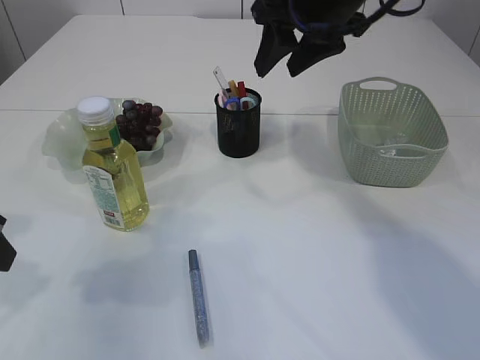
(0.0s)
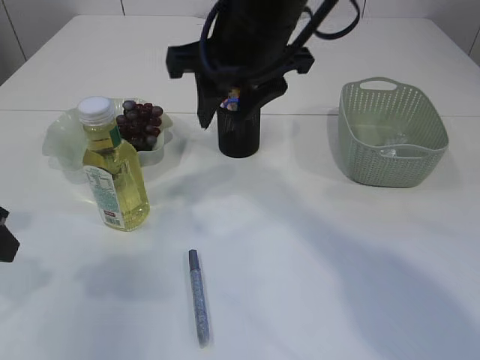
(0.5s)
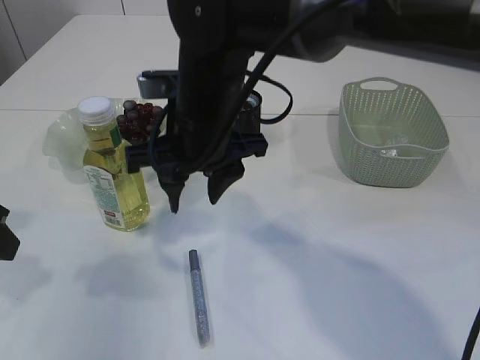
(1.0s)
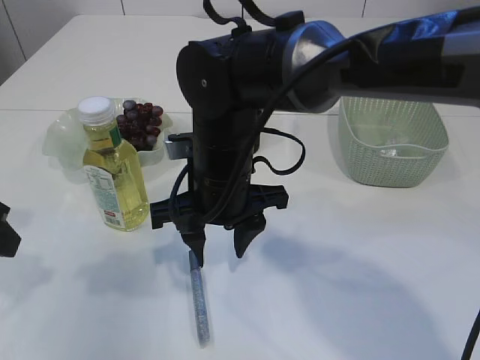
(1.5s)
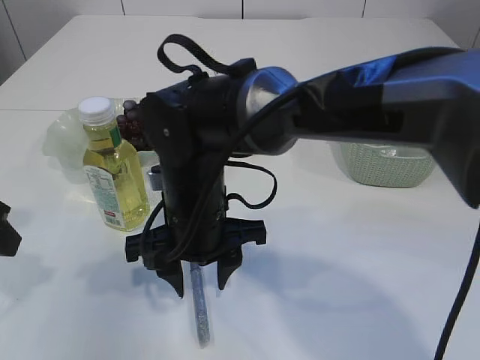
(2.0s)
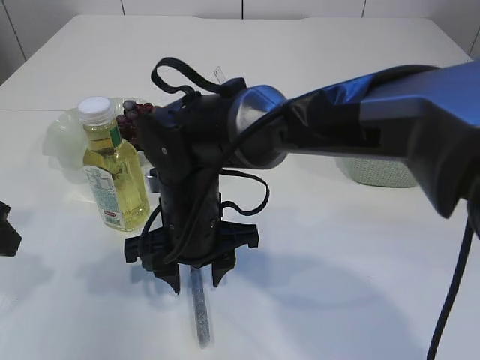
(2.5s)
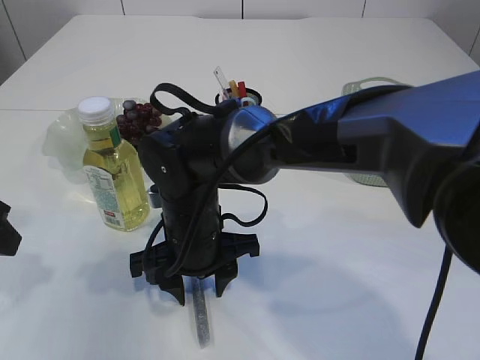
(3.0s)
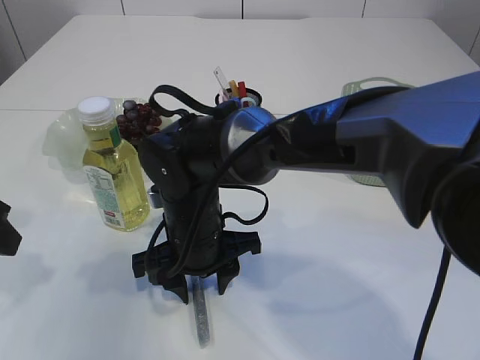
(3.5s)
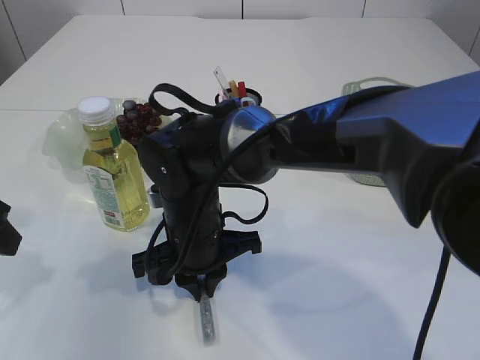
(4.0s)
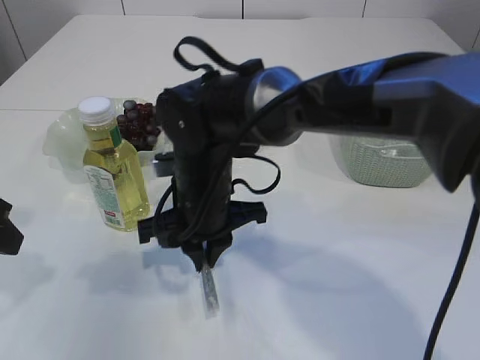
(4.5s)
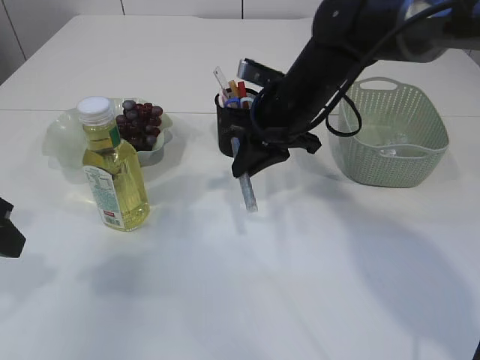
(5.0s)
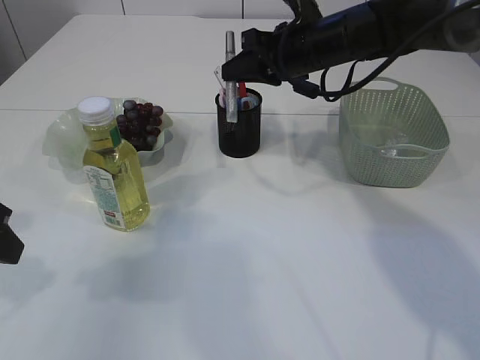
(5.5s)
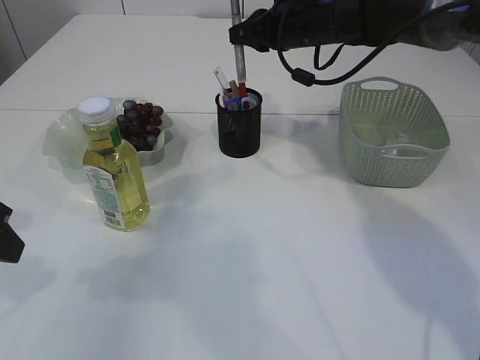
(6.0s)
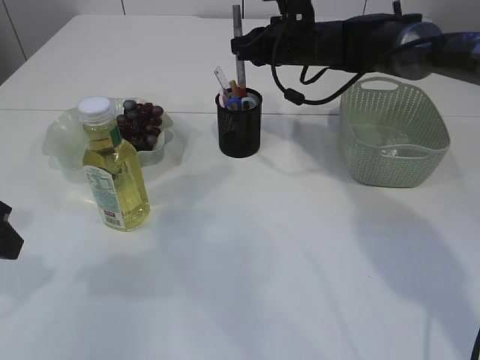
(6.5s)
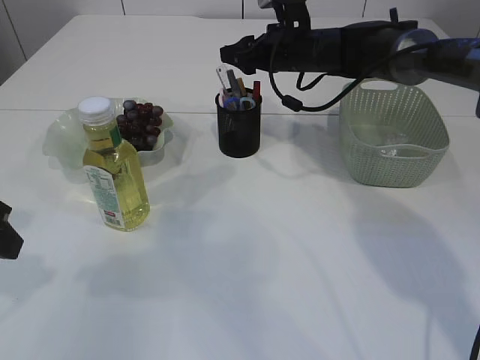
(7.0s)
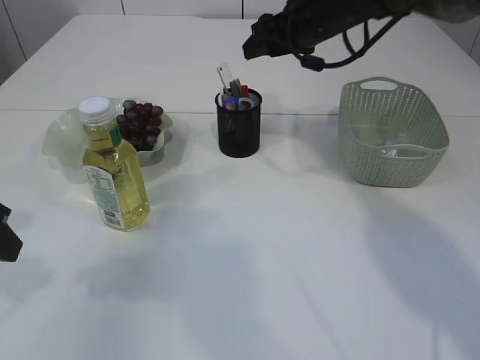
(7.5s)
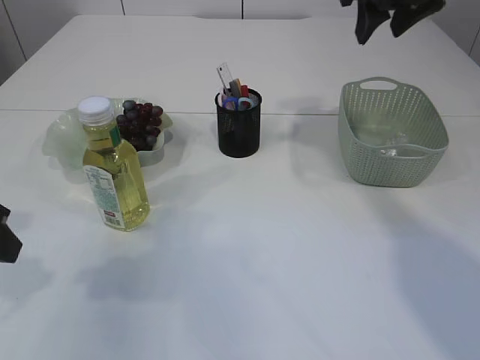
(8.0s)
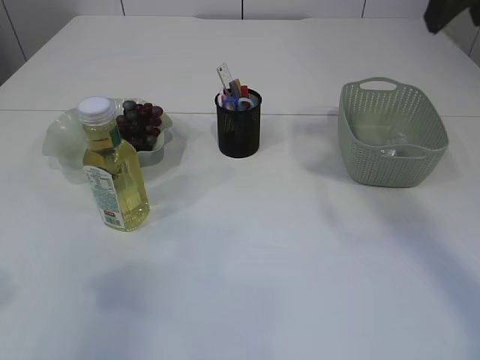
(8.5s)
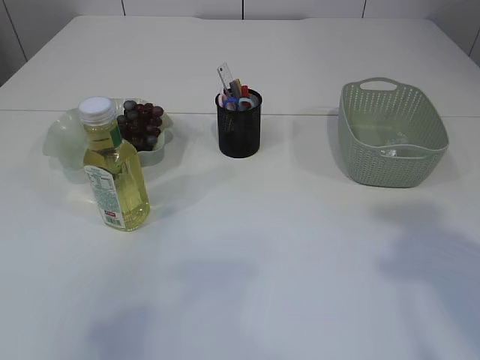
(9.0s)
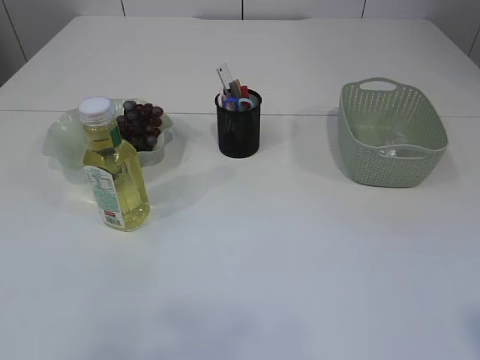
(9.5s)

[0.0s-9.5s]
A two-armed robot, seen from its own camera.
Step, 0.0s to 4.5s: pick up the silver glue.
Step, 5.0s to 7.5s: place the silver glue into the pen holder.
0.0s to 2.0s: The right gripper is displaced downward, to the left and backward by approximately 25 cm.
2.0s to 4.0s: The right gripper closes its fingers.
4.0s to 5.5s: The right gripper heads to the right, forward and upward, covering about 25 cm.
5.5s to 7.5s: The right gripper opens its fingers.
7.5s to 9.5s: The right gripper is displaced backward by about 50 cm. The left gripper heads backward and upward, covering roughly 20 cm.

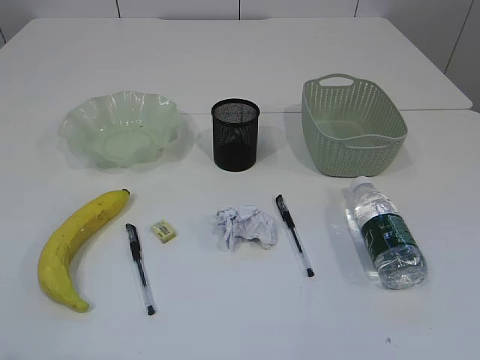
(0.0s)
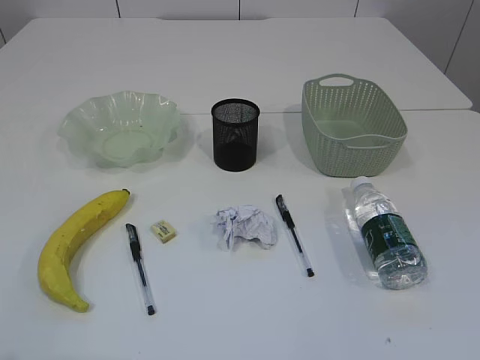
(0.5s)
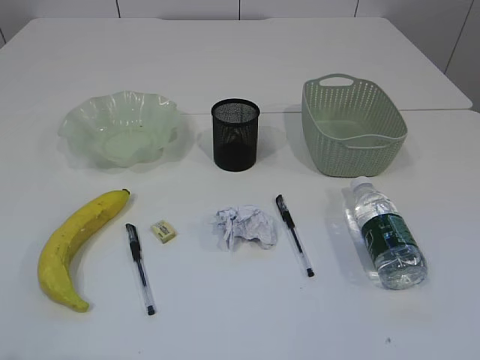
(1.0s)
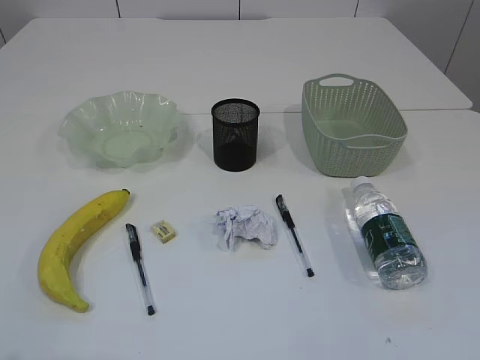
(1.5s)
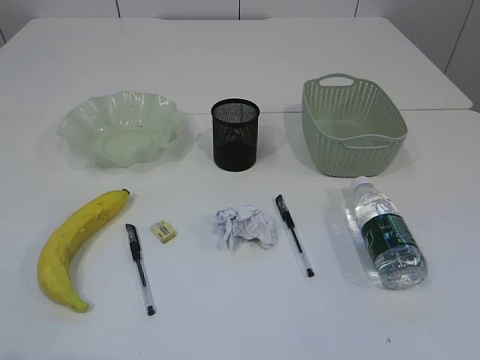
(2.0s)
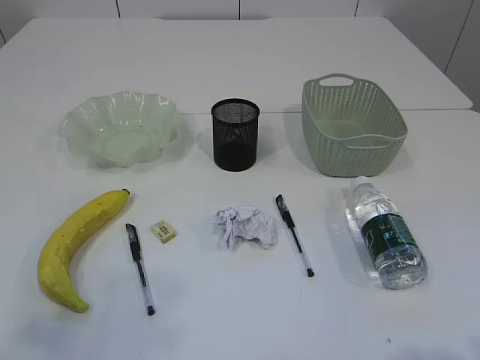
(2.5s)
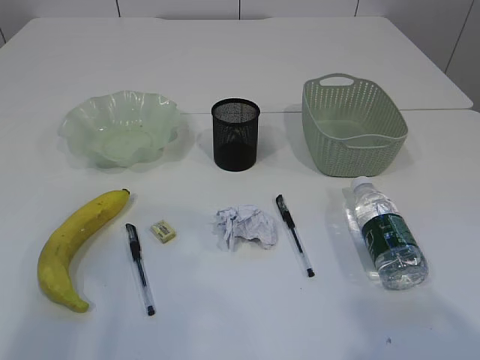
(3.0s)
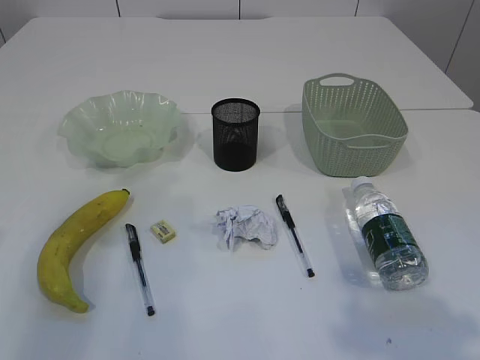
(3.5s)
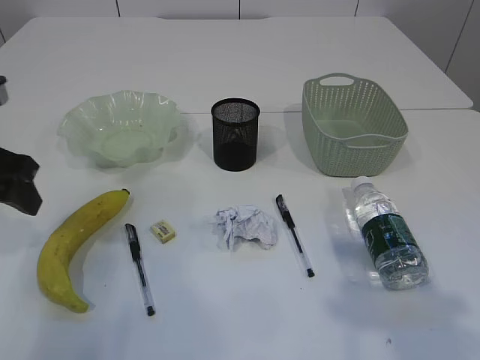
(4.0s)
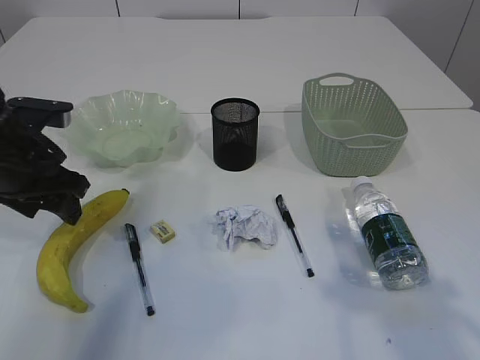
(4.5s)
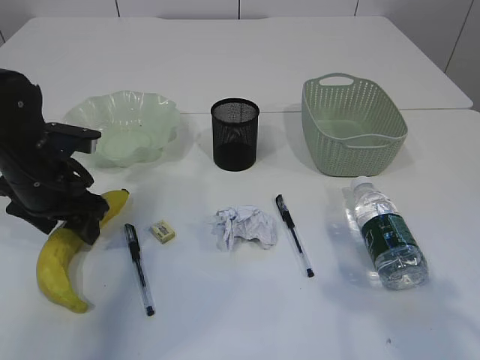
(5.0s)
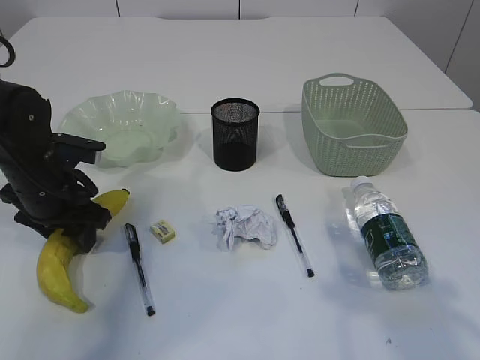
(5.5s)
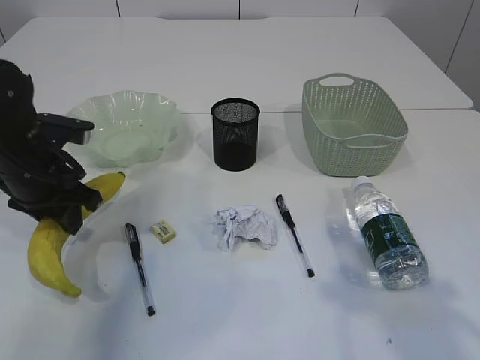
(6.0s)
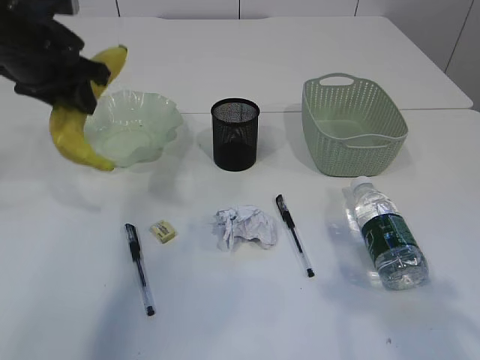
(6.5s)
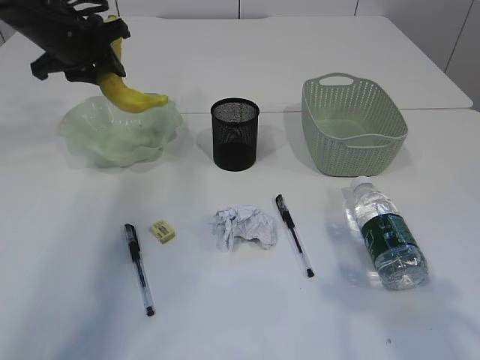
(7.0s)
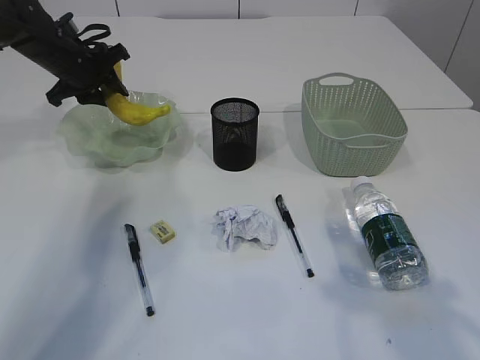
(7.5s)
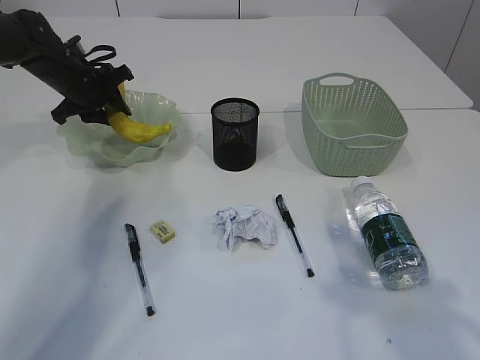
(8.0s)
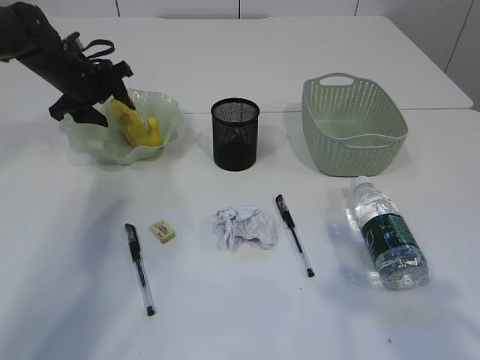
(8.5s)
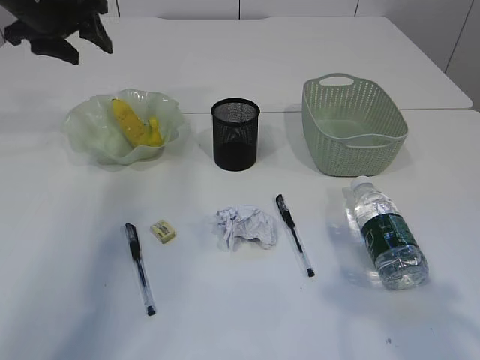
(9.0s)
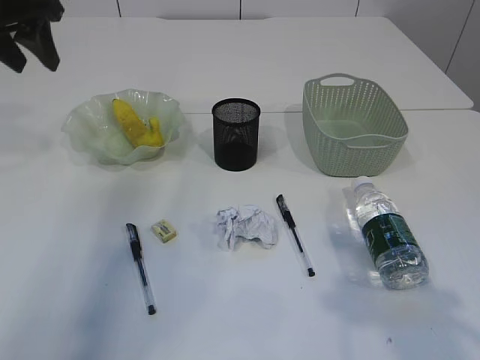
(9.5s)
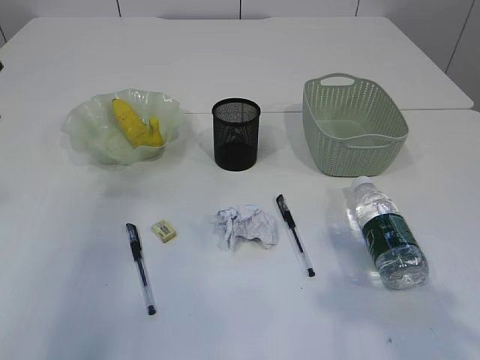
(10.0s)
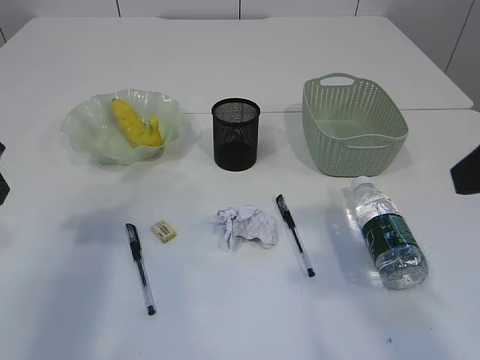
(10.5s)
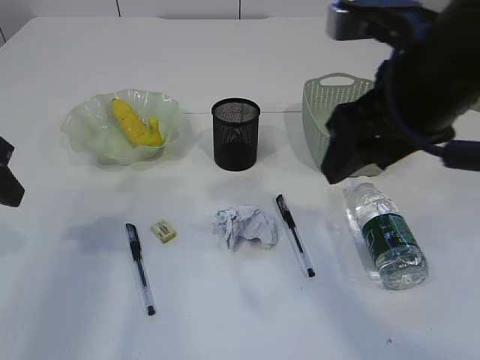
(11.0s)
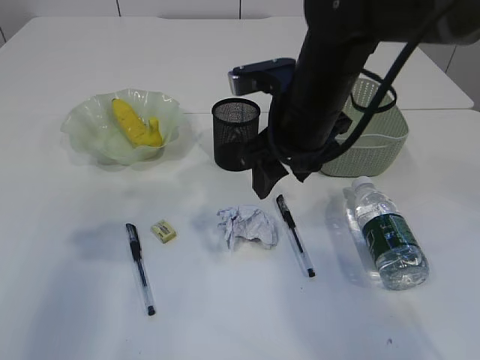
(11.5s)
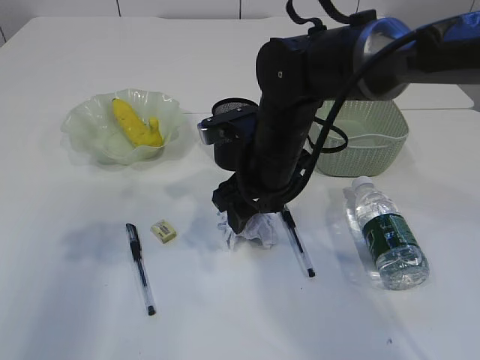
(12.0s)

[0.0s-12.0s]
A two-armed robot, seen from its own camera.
Step, 6.5s to 8.5s: Place the banana in the plate.
2.0s to 4.0s: The right gripper is displaced forward by approximately 15 cm. Meanwhile the left gripper travels forward by roughly 30 cm.
4.0s to 6.0s: The left gripper heads downward and forward, covering roughly 10 cm, and closes its fingers.
6.0s to 8.0s: The left gripper travels forward by about 20 cm.
8.0s to 10.0s: The left gripper is displaced backward and upward by some 25 cm.
10.0s to 12.0s: The left gripper is displaced backward by some 10 cm, while the right gripper goes about 35 cm forward, to the left and downward.

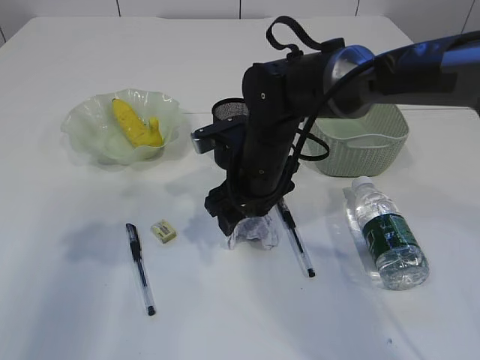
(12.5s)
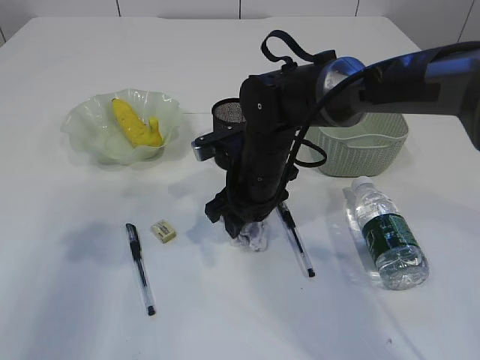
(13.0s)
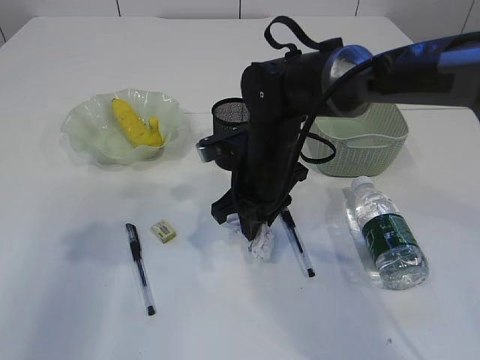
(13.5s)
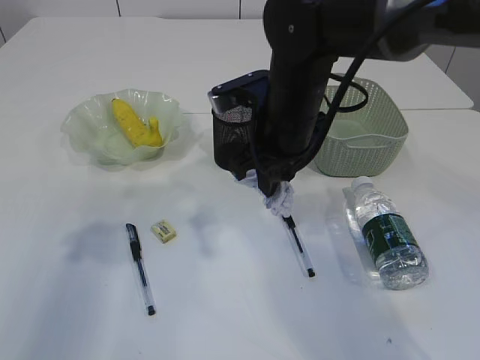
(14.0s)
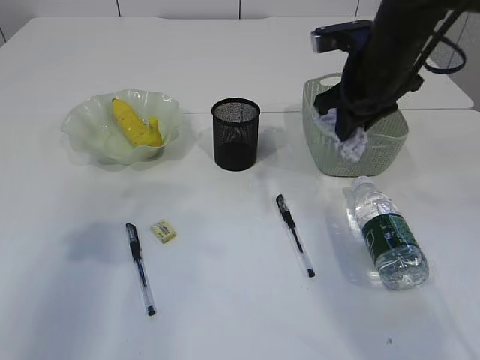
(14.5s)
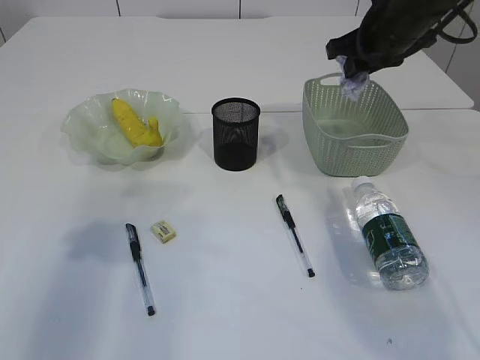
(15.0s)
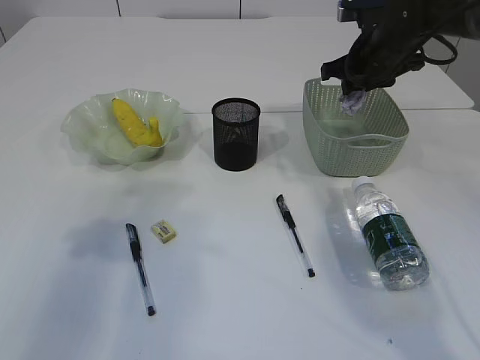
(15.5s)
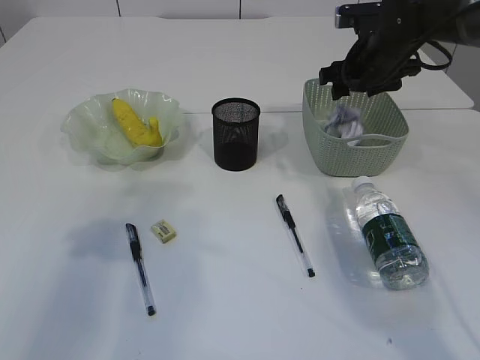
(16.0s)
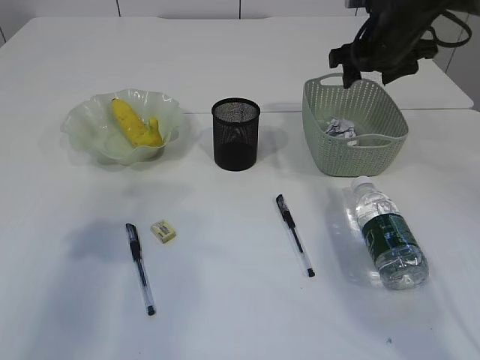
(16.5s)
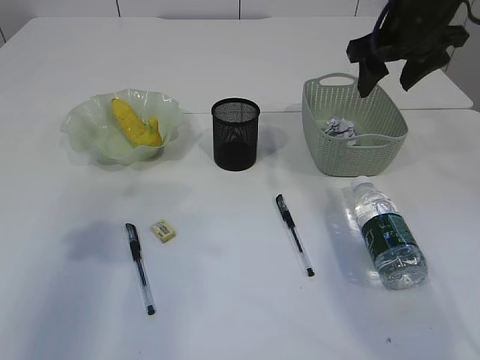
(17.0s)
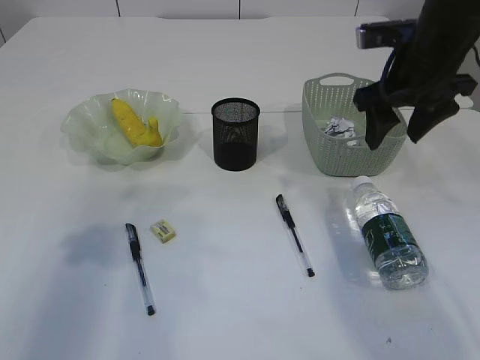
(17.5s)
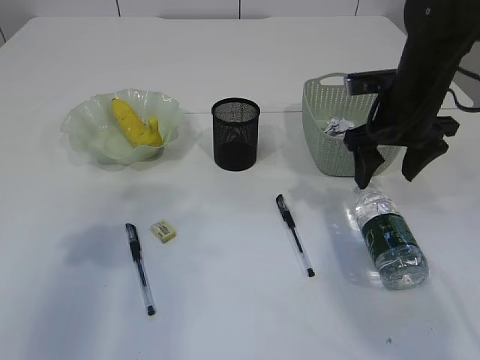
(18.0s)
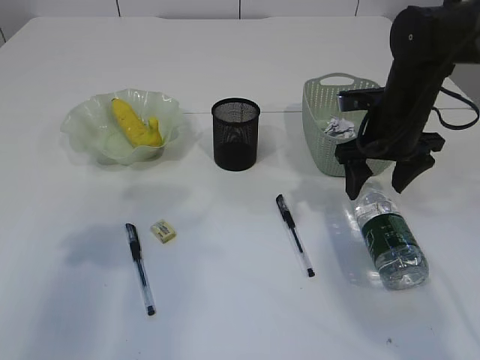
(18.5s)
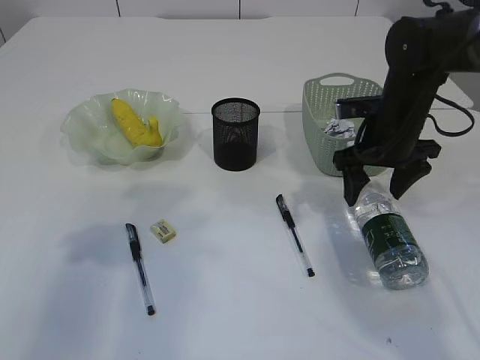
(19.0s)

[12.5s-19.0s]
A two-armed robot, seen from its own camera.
Step, 14.0s to 16.0s: Place the waste paper in the basket.
12.5s to 14.5s: The right gripper goes roughly 15 cm to the right and upward, and closes up.
14.5s to 17.0s: The right gripper moves upward, approximately 5 cm, goes forward and returns, some 10 cm each way, and opens its fingers.
17.0s to 19.0s: The right gripper heads downward, covering some 15 cm.
